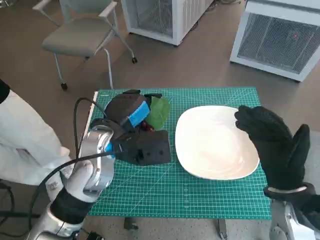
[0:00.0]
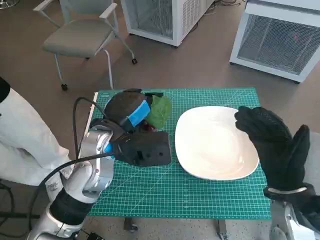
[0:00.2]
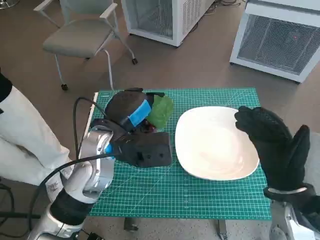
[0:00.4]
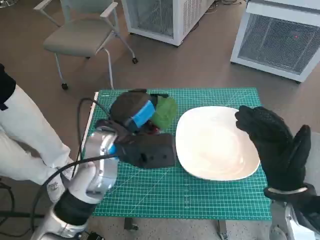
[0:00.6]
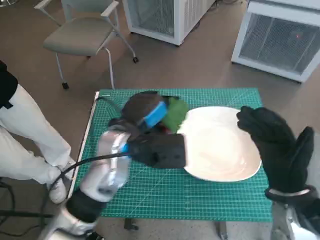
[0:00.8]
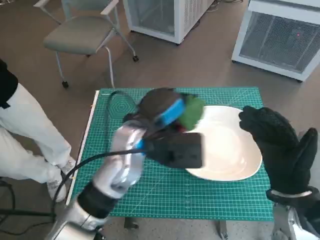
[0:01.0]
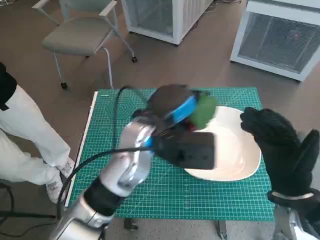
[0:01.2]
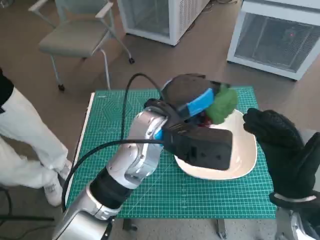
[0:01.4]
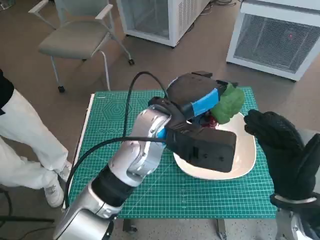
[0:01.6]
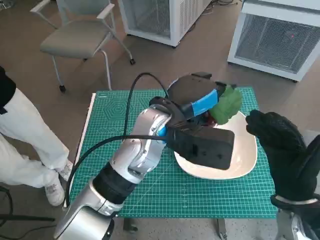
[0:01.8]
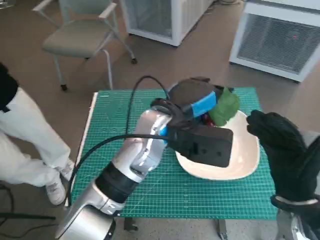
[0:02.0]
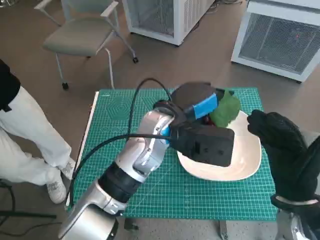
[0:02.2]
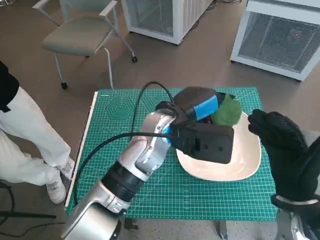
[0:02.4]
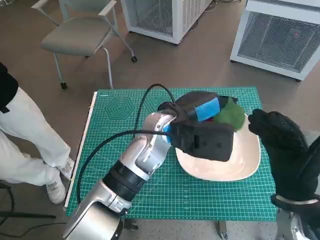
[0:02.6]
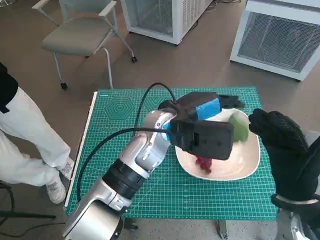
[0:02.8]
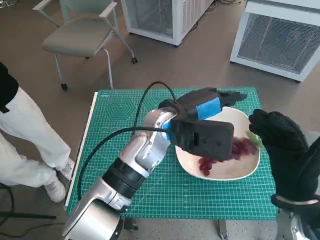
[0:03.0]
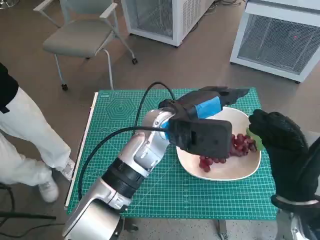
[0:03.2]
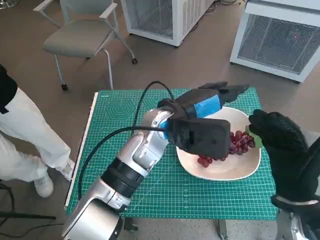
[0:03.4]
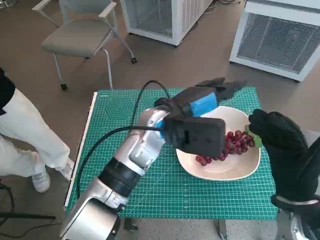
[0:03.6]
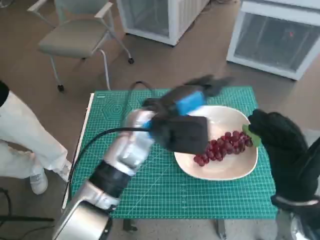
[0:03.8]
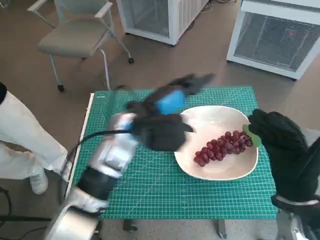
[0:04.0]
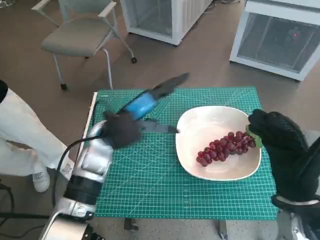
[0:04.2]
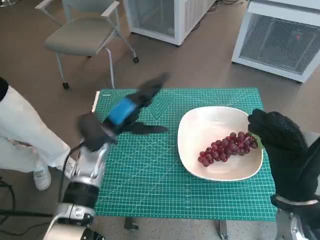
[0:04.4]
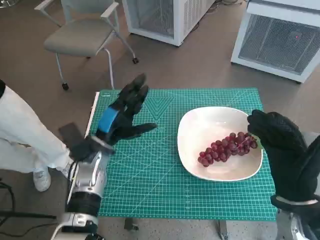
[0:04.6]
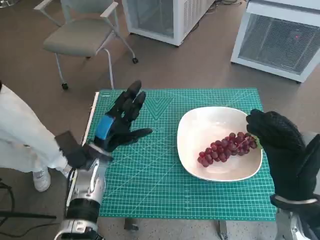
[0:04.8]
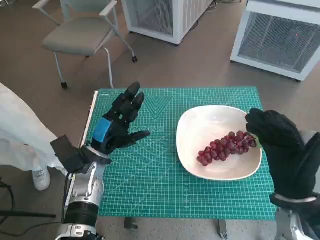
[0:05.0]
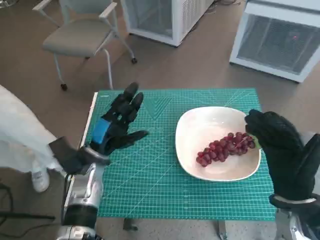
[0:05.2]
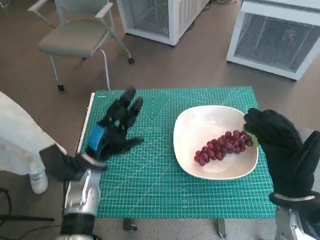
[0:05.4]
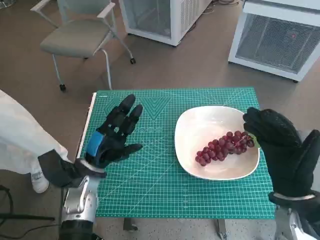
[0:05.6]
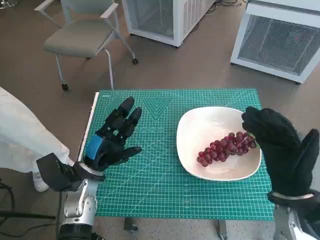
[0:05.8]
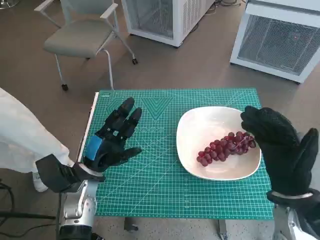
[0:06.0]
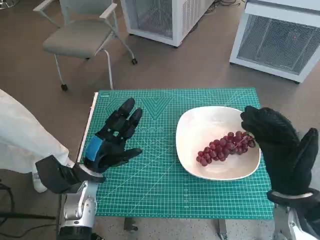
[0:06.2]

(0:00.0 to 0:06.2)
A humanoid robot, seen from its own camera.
Task of the whole recording: Pick up the grapes and put them on the plate.
Step, 0:00.0 - 0:02.6: Place the grapes in the plate with left hand.
0:00.0 - 0:01.6: The left hand moves to the right, approximately 10 cm.
0:03.2 - 0:04.6: The left hand heads to the left and downward, covering about 20 cm.
0:04.6 - 0:06.2: The left hand heads backward, covering about 5 cm.
